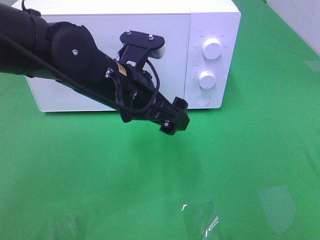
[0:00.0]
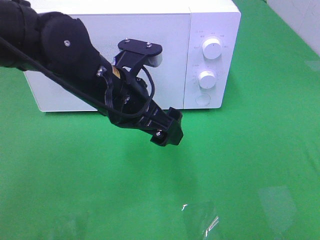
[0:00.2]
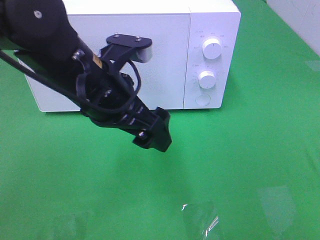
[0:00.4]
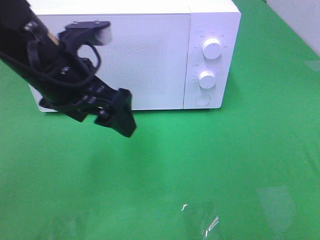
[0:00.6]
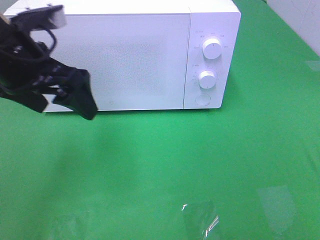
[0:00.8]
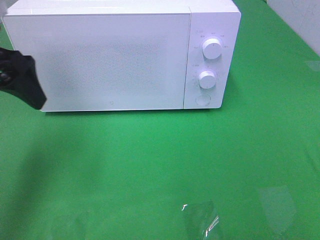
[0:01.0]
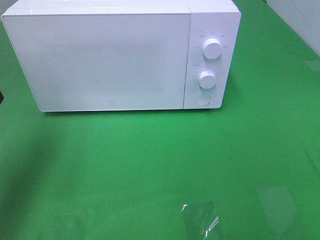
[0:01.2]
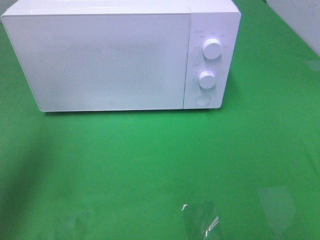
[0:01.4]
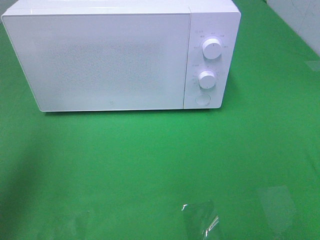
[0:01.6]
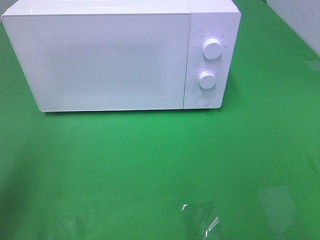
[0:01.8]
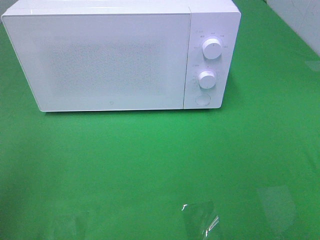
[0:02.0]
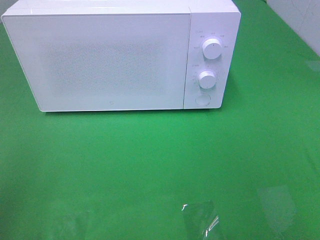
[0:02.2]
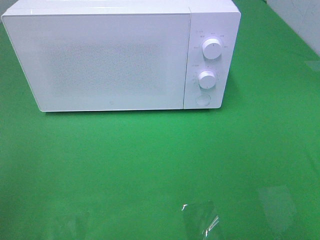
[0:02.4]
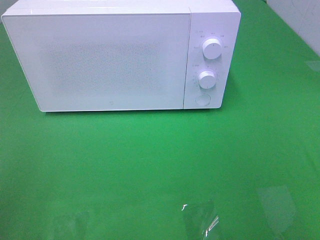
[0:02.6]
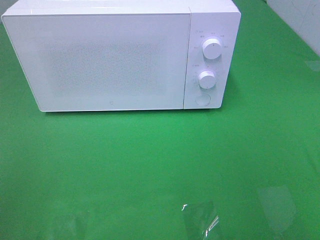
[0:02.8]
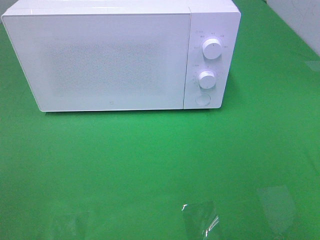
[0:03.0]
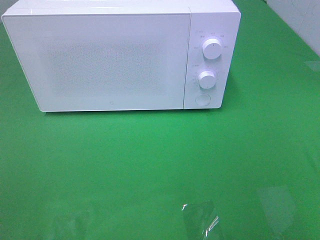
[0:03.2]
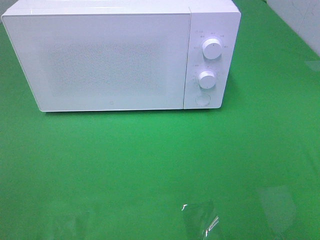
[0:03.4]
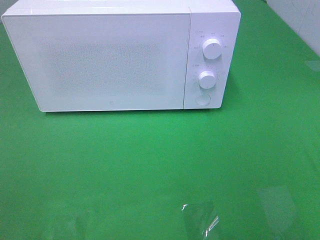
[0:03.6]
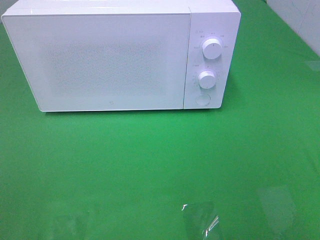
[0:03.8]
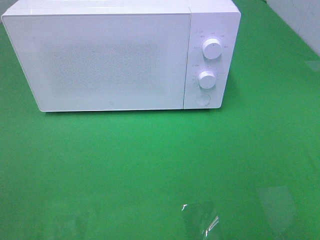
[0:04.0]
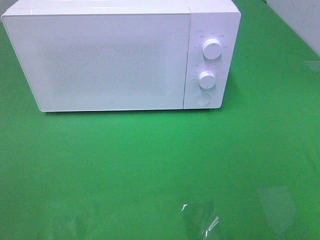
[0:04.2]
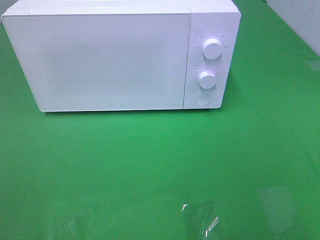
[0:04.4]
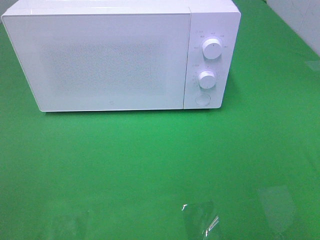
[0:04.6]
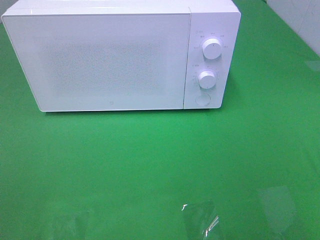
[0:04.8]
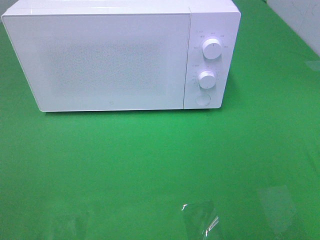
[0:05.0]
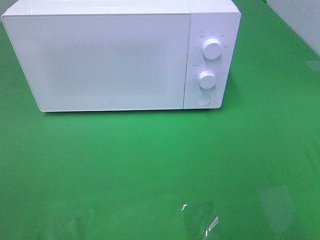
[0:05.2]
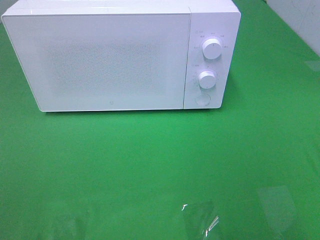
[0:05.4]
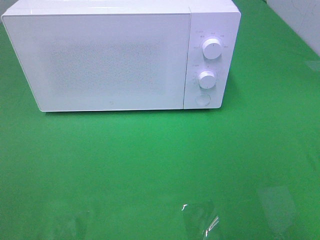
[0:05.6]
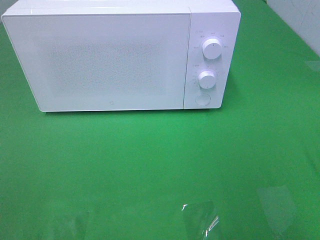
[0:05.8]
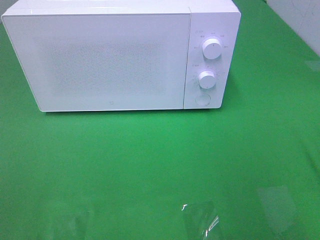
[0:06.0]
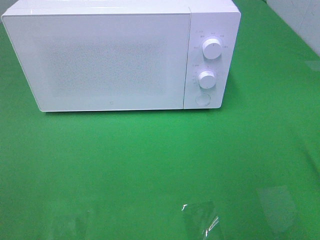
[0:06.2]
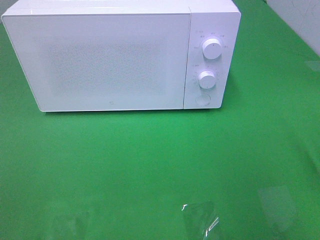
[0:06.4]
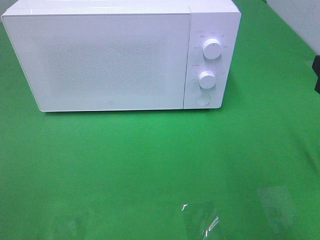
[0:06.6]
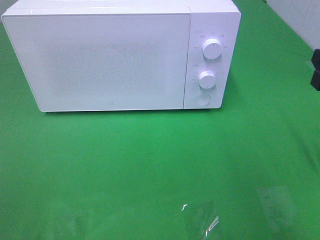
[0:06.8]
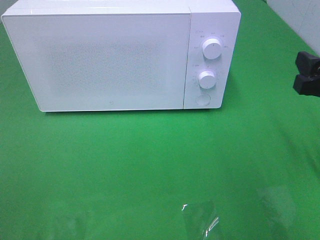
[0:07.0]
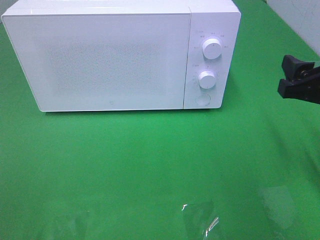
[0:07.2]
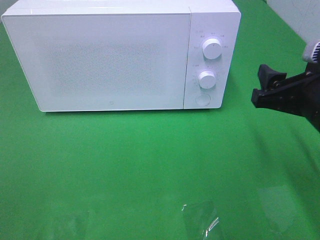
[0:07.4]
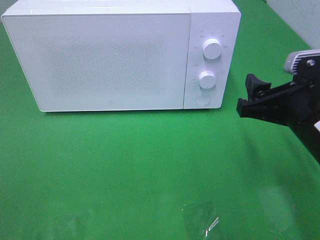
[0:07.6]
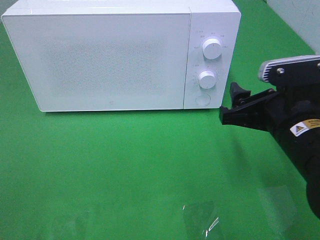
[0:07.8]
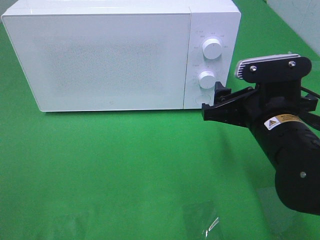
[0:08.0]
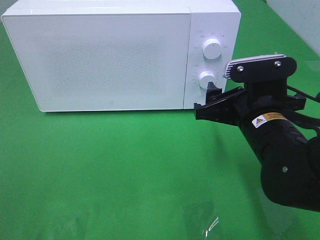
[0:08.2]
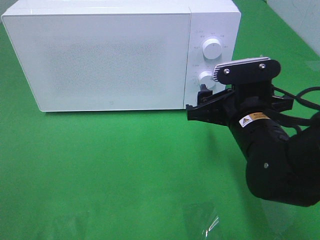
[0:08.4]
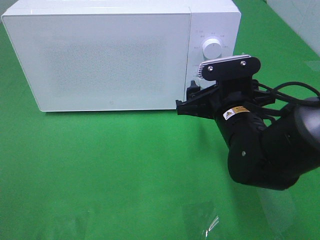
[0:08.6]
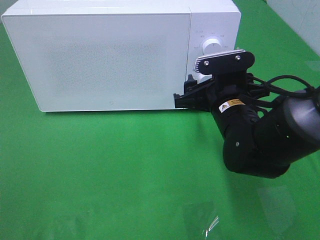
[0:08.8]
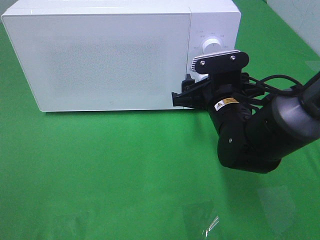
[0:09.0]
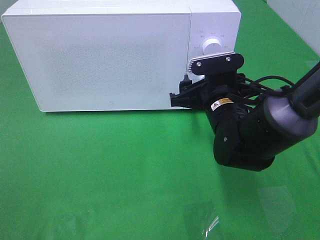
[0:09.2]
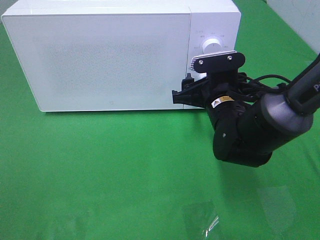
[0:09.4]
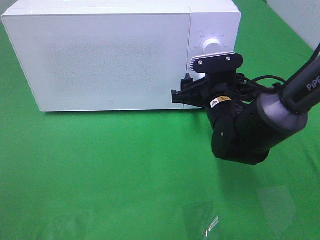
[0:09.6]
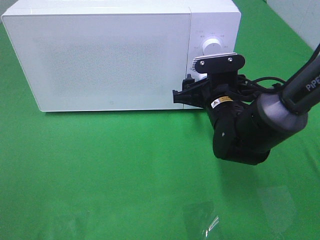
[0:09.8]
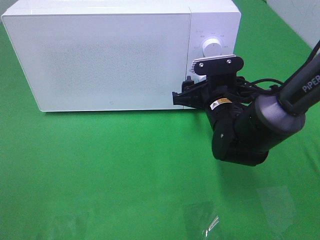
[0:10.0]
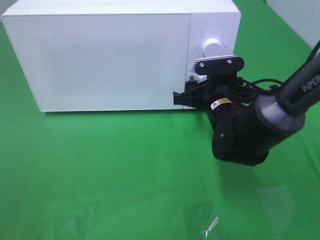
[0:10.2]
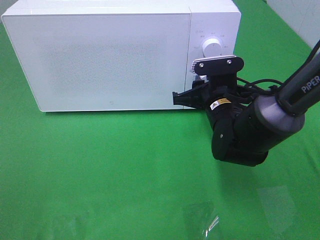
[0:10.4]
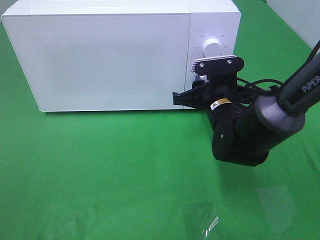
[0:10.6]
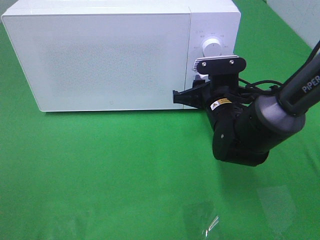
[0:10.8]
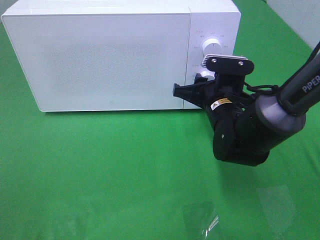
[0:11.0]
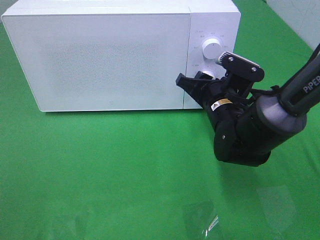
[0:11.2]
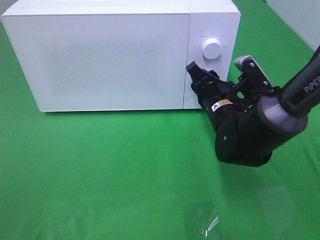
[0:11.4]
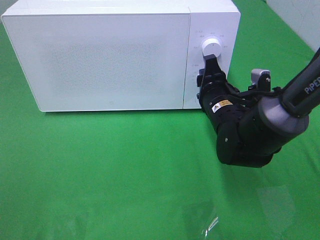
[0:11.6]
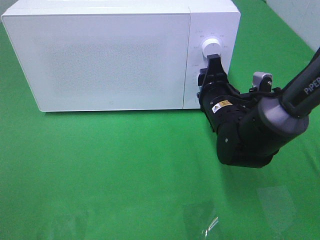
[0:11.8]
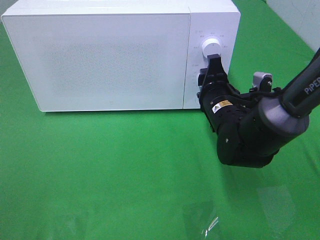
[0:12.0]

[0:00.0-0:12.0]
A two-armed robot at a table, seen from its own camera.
Task of the whole recording: Heat the burger.
0:00.0 to 0:01.6: The left gripper travels to the left and upward by roughly 30 cm.
0:01.6 to 0:03.0: The left gripper is displaced backward by about 20 cm.
0:06.0 to 0:07.6: The right gripper heads downward, to the left and forward, covering roughly 15 cm.
0:07.6 to 0:09.0: The right gripper goes about 15 cm forward, to the left and downward.
0:09.0 to 0:10.4: The right gripper closes up.

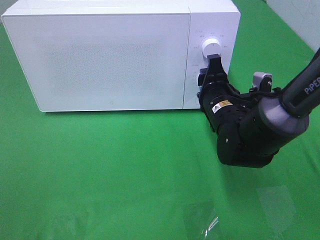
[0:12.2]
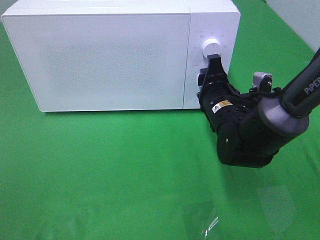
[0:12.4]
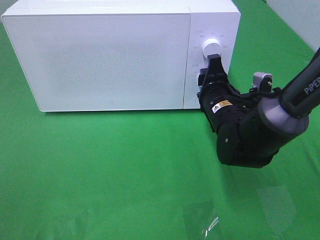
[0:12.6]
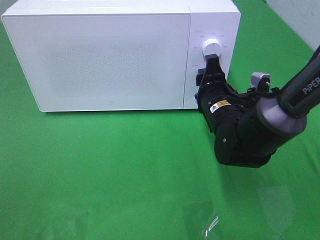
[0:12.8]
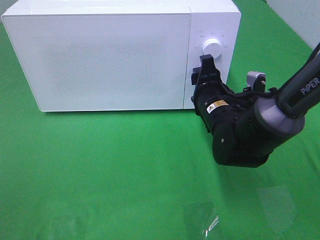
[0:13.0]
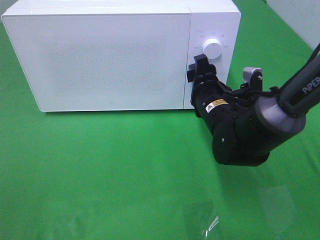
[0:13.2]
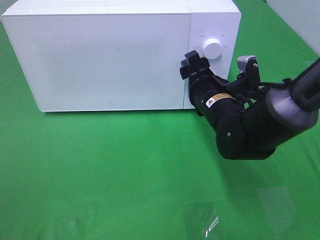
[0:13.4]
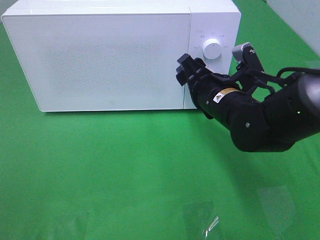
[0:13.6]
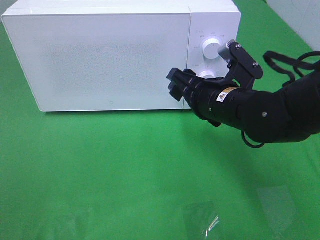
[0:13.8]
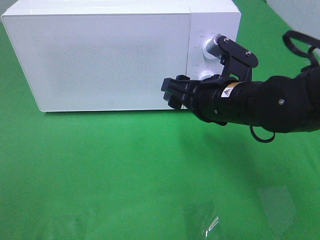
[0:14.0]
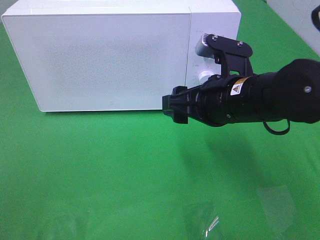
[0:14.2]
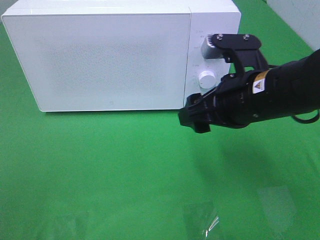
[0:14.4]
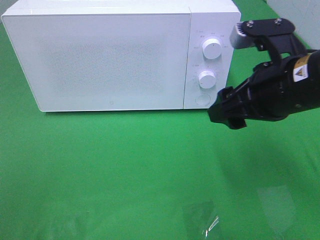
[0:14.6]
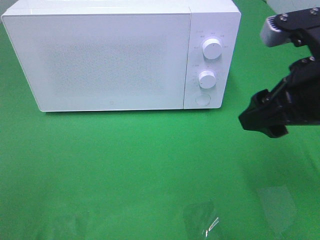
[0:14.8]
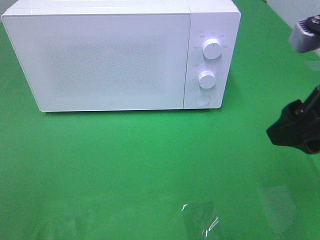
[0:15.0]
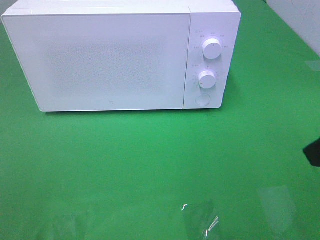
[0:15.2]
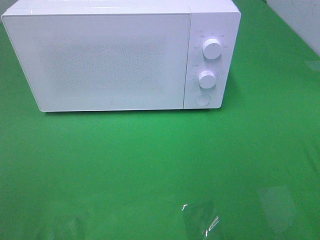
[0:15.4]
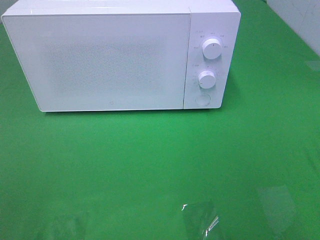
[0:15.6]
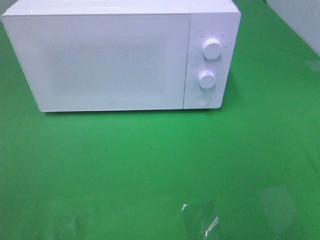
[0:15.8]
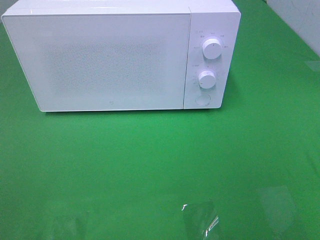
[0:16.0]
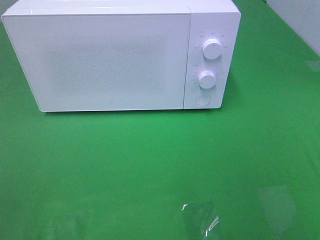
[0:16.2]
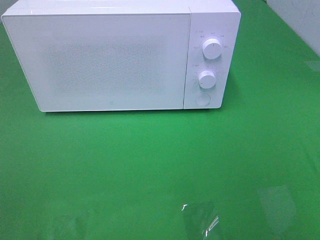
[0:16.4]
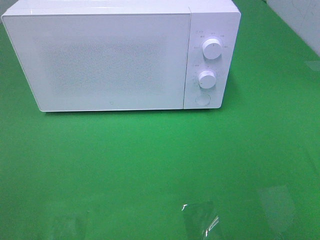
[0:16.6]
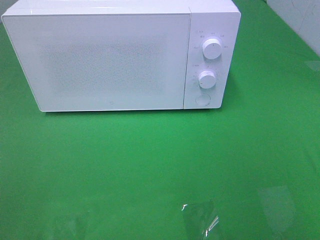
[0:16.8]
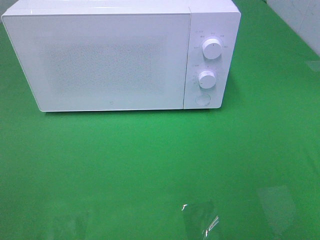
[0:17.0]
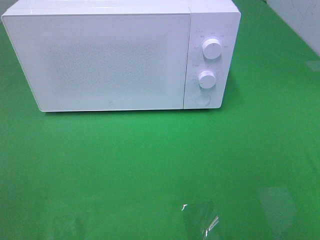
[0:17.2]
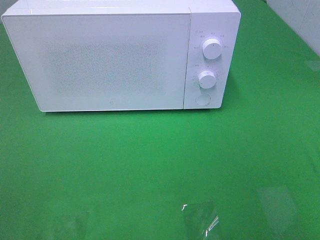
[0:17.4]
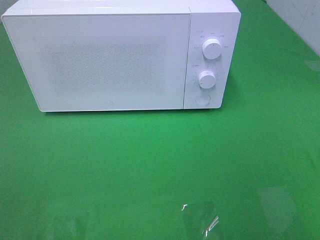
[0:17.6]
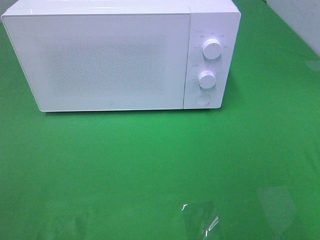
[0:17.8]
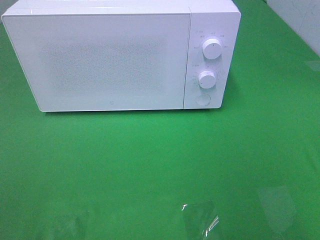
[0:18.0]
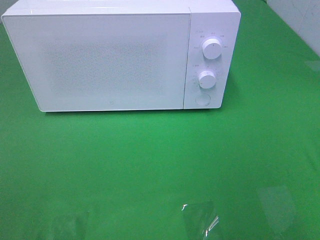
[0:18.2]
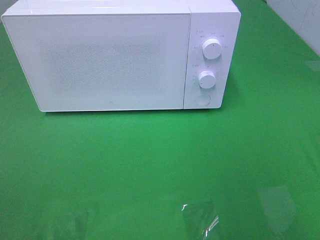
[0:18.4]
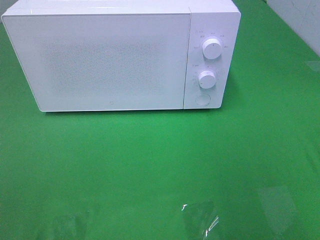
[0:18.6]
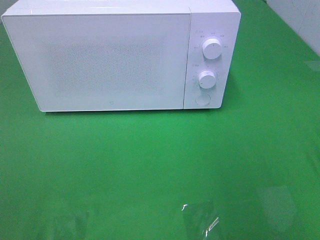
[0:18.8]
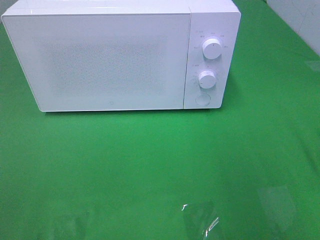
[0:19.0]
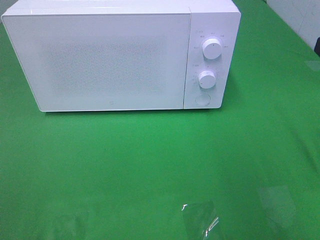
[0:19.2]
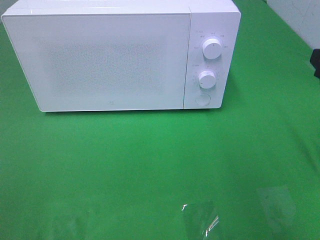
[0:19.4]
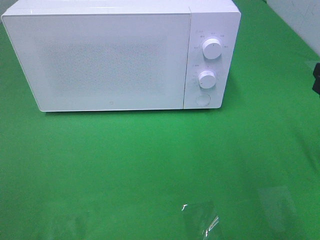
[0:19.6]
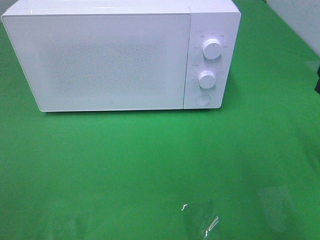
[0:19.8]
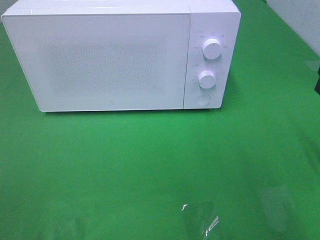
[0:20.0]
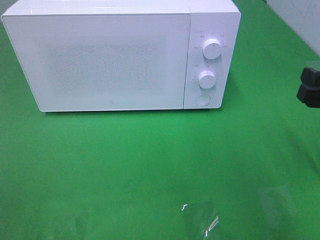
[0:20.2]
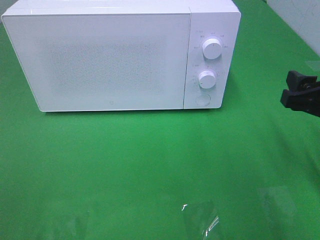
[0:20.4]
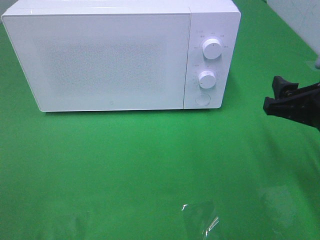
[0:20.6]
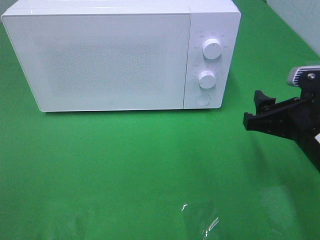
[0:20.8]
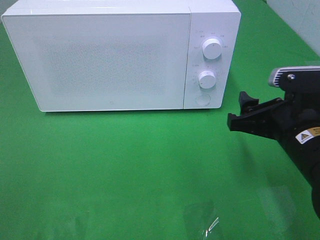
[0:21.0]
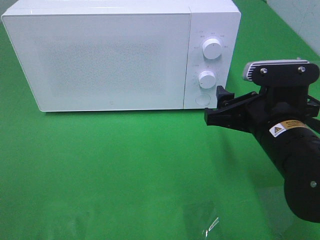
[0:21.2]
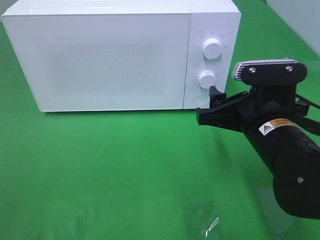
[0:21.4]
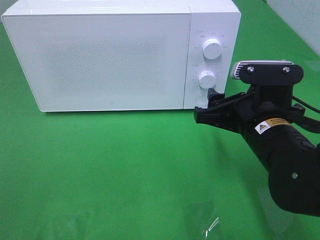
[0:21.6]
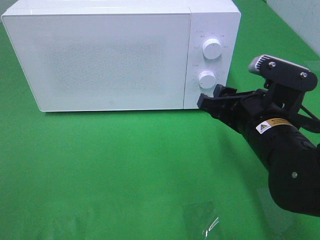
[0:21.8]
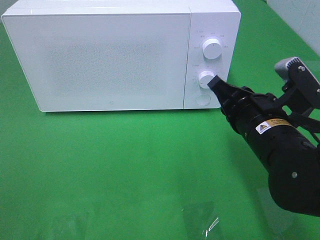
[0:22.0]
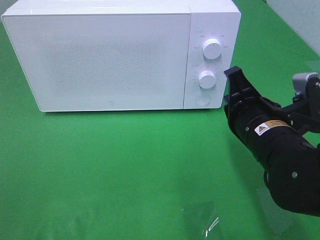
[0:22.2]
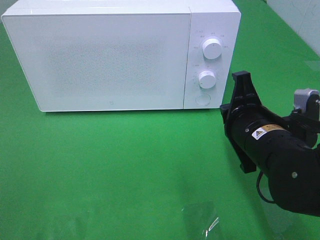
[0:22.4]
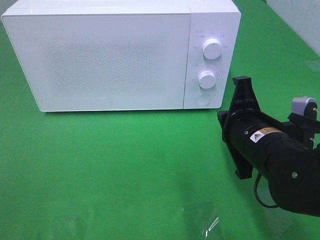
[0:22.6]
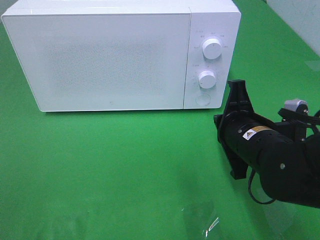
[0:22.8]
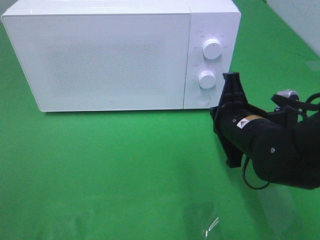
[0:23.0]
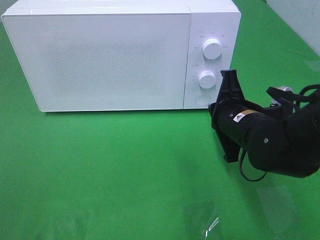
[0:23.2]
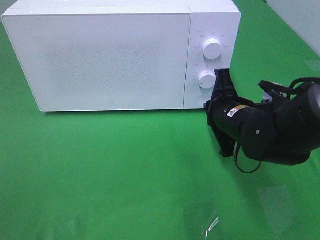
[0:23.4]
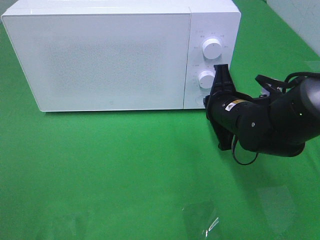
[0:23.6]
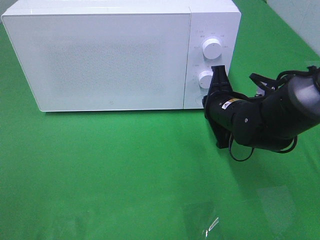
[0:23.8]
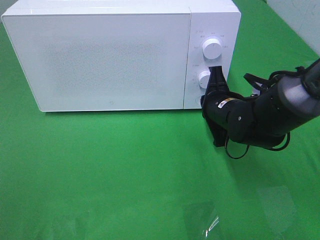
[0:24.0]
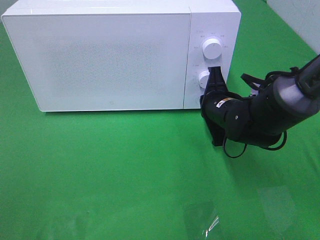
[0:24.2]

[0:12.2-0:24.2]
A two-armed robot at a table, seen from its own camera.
Task of the whole recording: Heat the burger.
0:12.2 to 0:13.8: The right gripper ends up approximately 5 cm from where it was.
0:13.8 to 0:15.2: The right gripper shifts roughly 25 cm backward, upward and to the right.
0:19.8 to 0:21.2: The right gripper heads to the left, covering about 15 cm.
0:21.2 to 0:22.6: The right gripper closes up.
0:22.6 to 0:24.2: The right gripper moves forward, about 10 cm.
